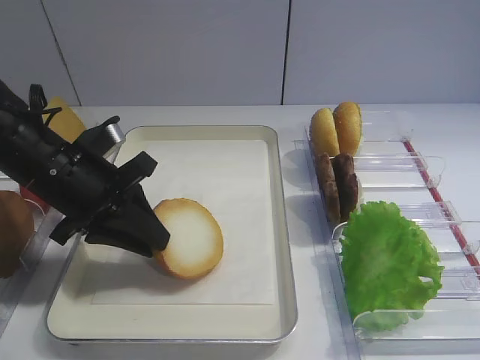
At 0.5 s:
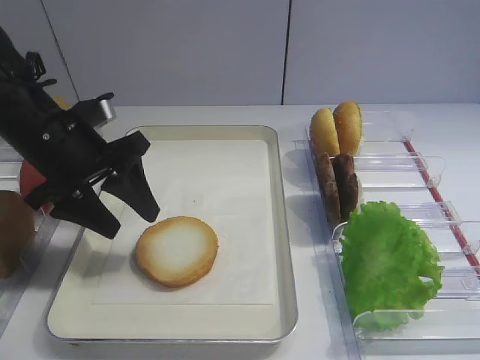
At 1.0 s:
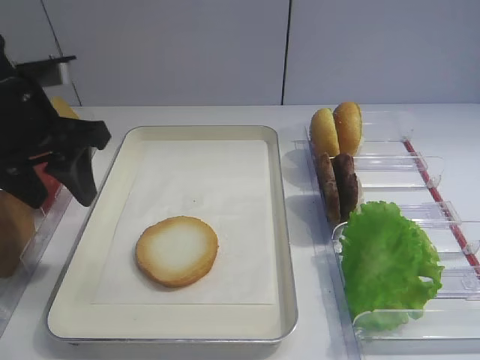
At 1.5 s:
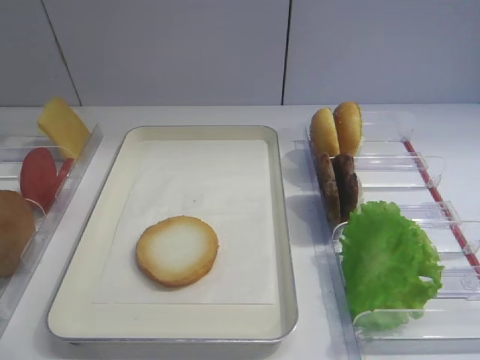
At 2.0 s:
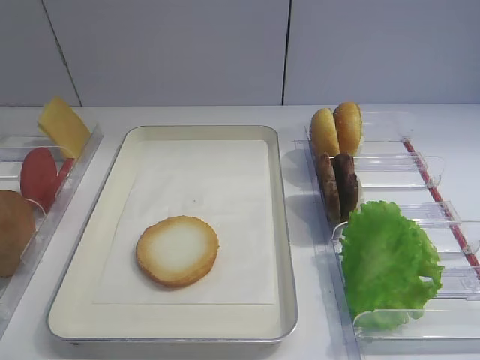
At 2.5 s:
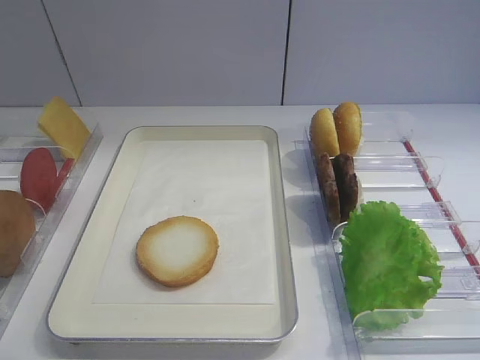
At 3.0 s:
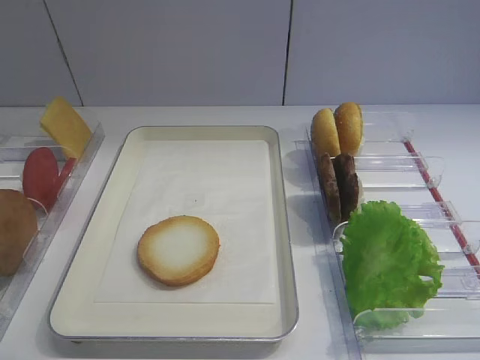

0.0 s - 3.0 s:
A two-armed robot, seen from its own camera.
0.0 s - 1.5 s: The left gripper travels backward, upward and to the left by about 25 cm.
1.5 s - 3.0 s: The left gripper travels backward and downward by about 10 cm.

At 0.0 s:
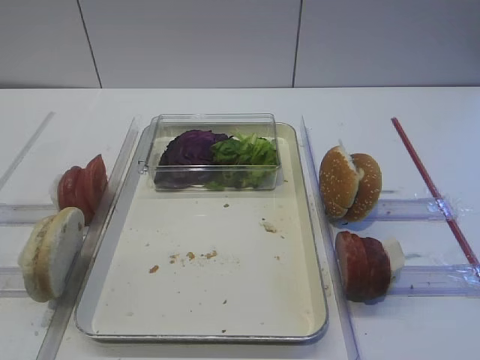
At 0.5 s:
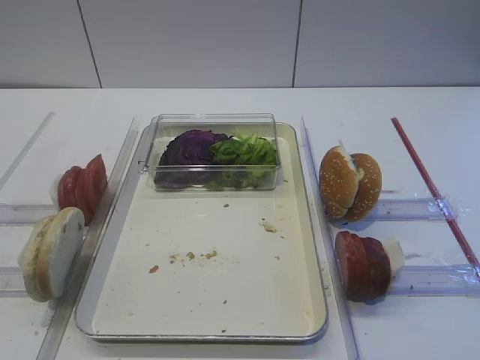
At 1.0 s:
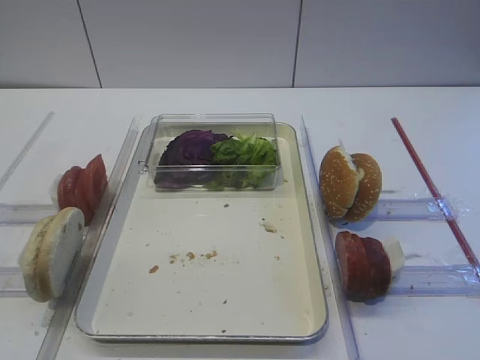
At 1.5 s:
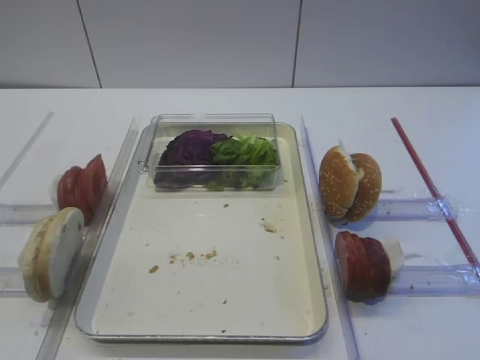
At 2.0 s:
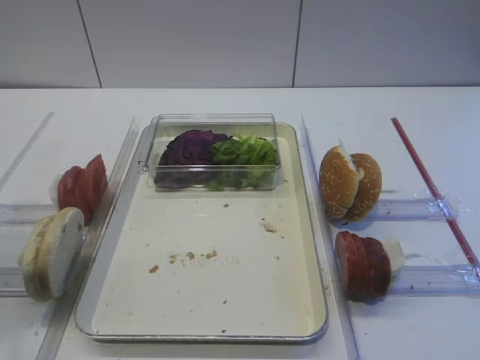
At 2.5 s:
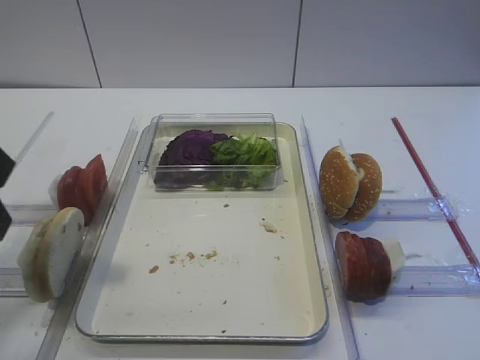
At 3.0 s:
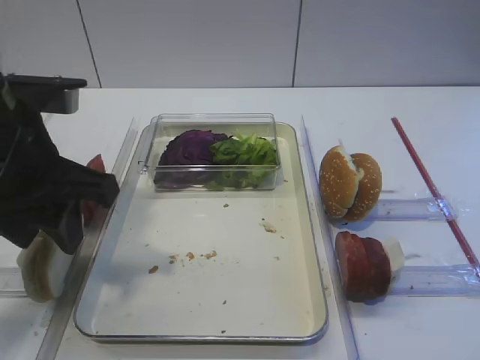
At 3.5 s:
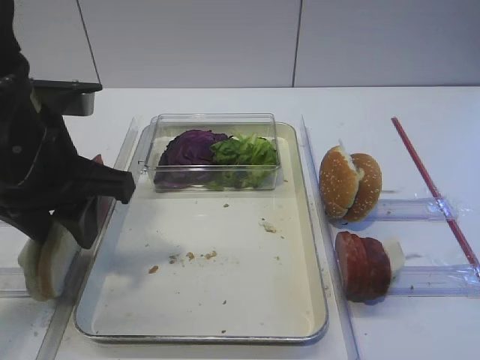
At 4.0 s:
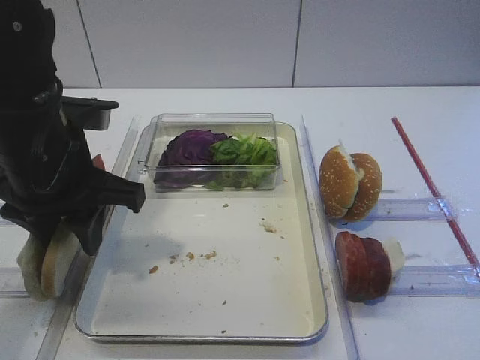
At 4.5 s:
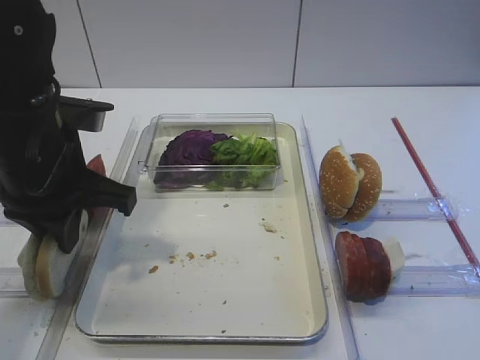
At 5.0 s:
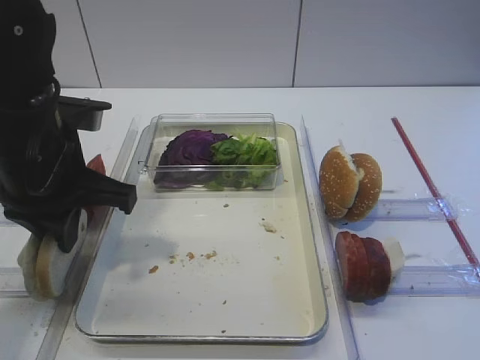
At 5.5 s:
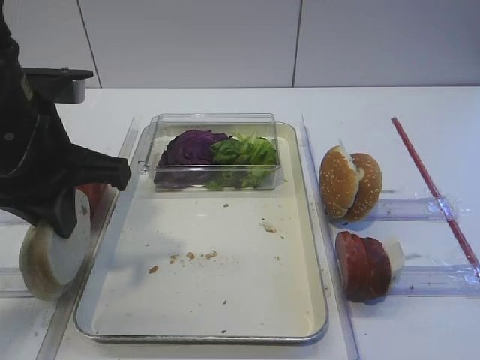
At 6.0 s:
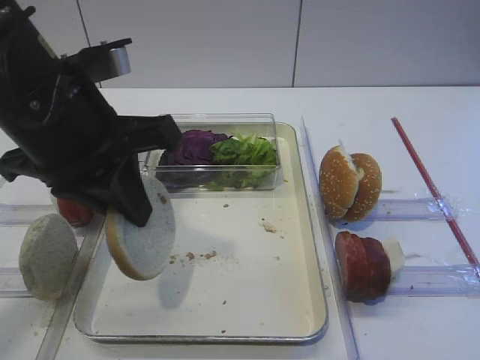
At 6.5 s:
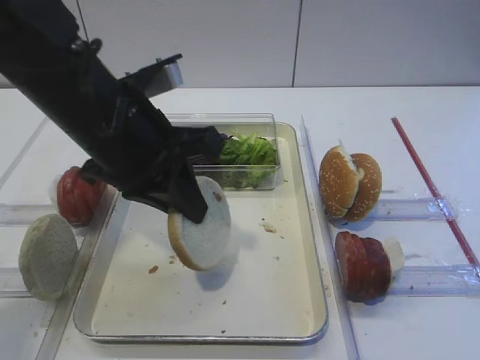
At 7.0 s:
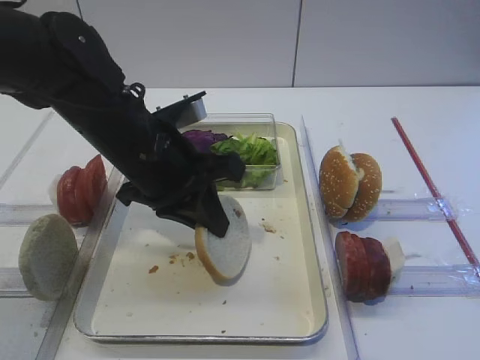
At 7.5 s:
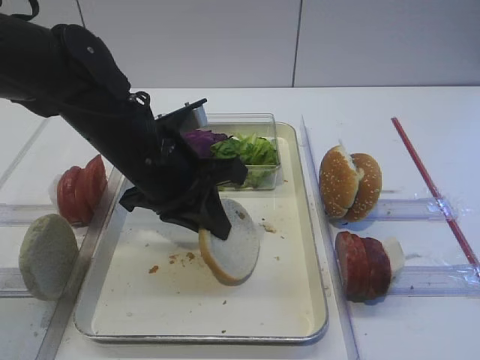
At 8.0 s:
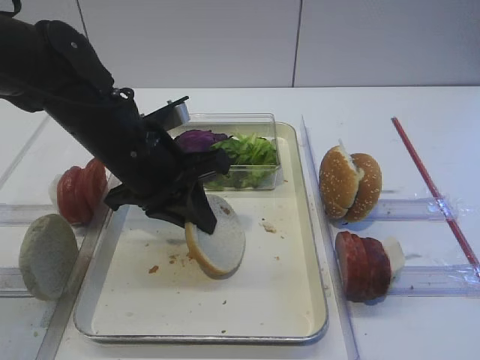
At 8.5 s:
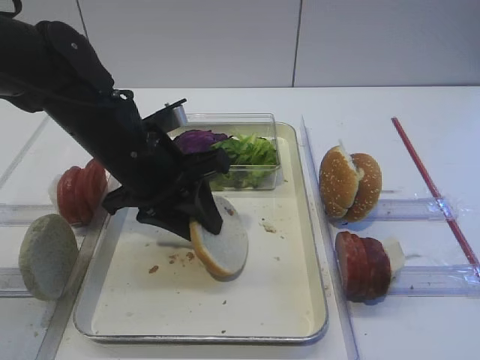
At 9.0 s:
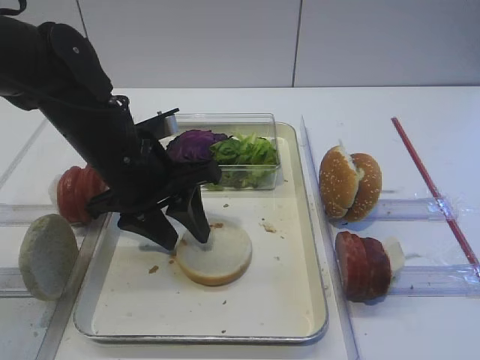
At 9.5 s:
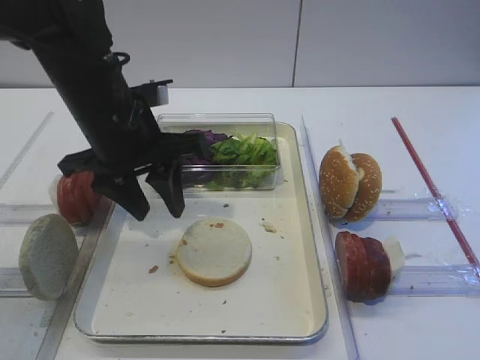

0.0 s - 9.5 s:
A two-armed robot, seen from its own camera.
Step, 0.0 s - 5.5 s: Pick up the bread slice with the left gripper.
Step, 6.0 s - 9.0 s: Place the bread slice on the tray with the left gripper.
2.0 s - 4.0 s: The left gripper heads forward, to the right and downward, covering some 20 cm.
4.0 s - 5.5 s: The left gripper closes.
5.5 s - 7.5 s: The left gripper moves to the right, downward and forward, approximately 10 cm.
7.5 s - 9.5 s: The left gripper opens its fingers.

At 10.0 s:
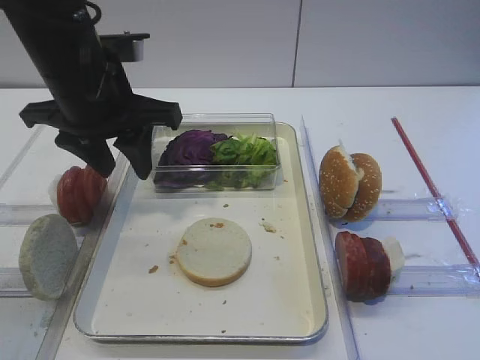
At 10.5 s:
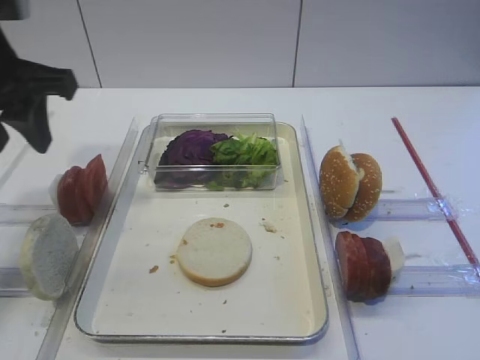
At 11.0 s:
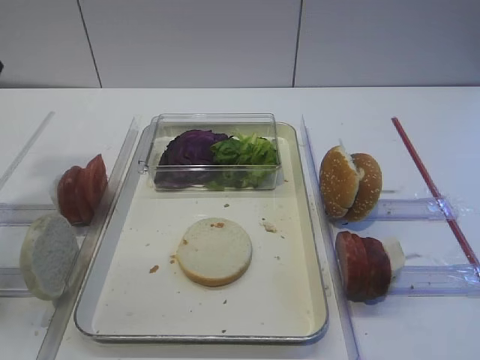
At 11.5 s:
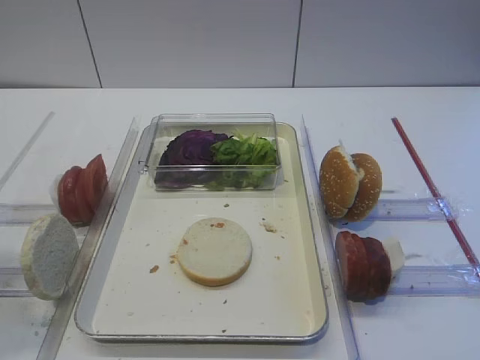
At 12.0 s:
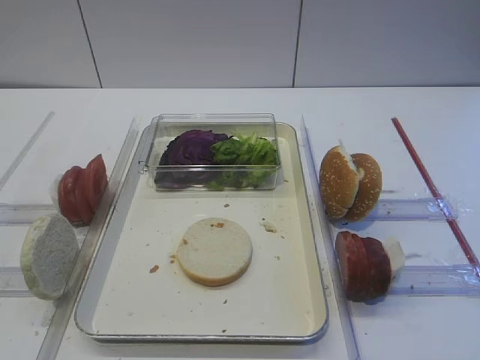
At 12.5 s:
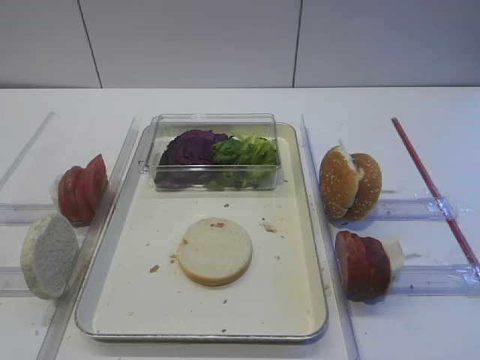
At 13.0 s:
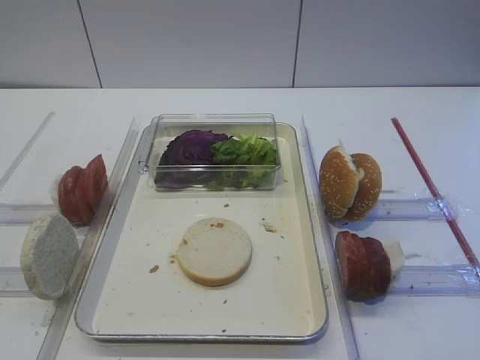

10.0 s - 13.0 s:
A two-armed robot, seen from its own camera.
10.0 s - 11.5 s: The left gripper goes some 25 cm backward and to the left.
11.5 s - 13.0 s: The left gripper heads backward and downward, covering approximately 15 cm.

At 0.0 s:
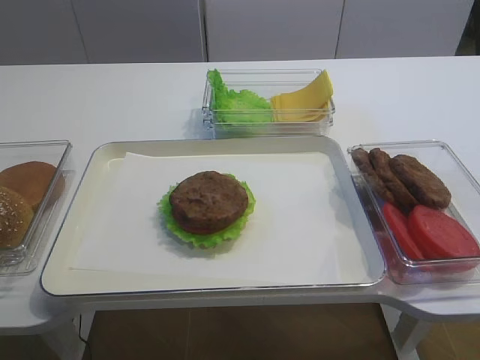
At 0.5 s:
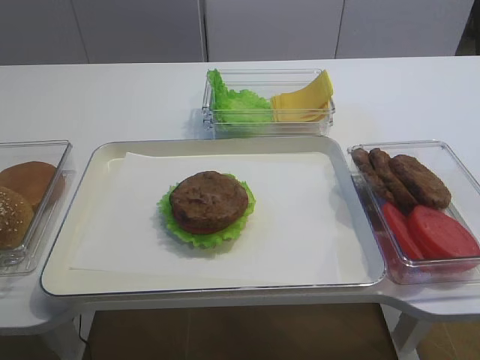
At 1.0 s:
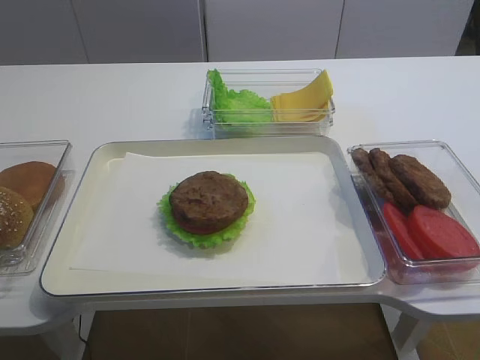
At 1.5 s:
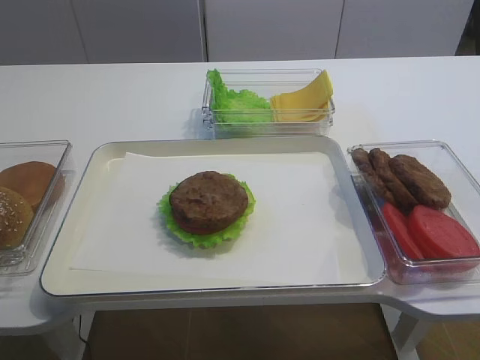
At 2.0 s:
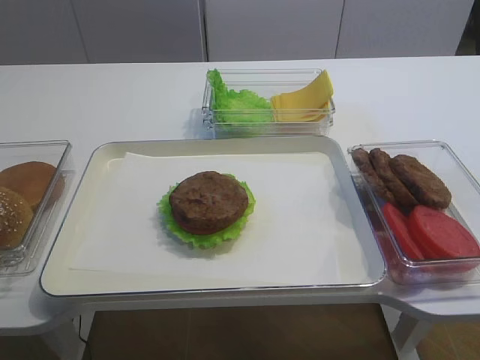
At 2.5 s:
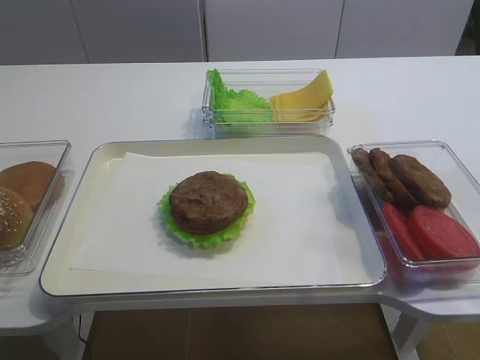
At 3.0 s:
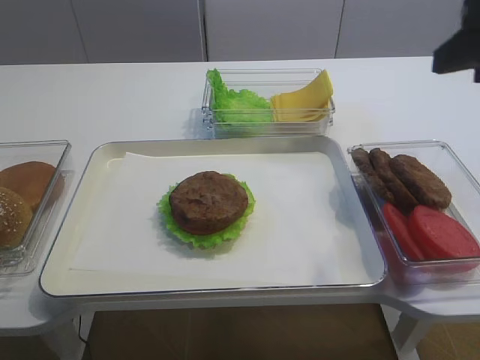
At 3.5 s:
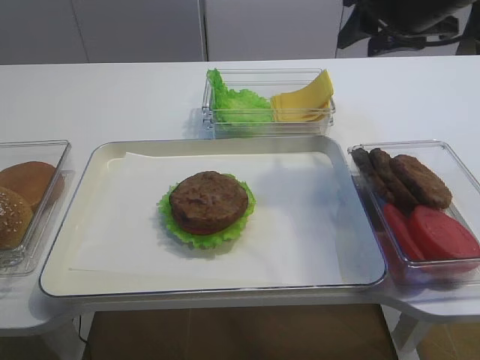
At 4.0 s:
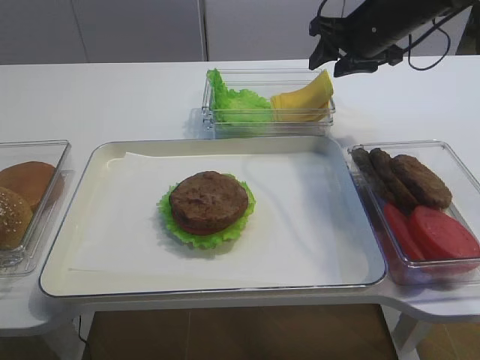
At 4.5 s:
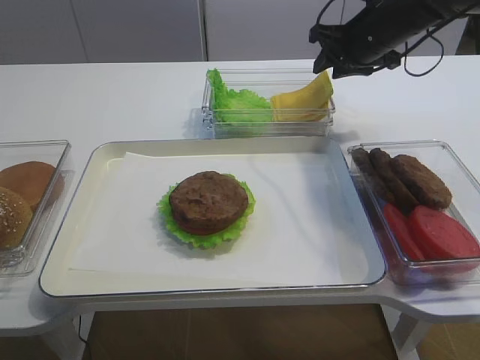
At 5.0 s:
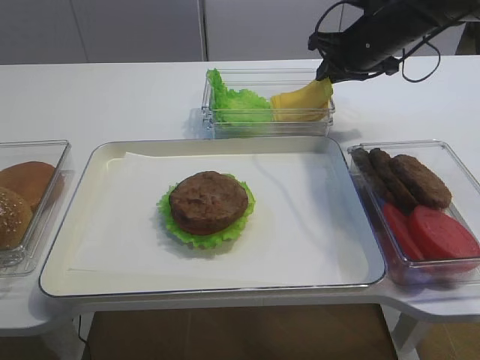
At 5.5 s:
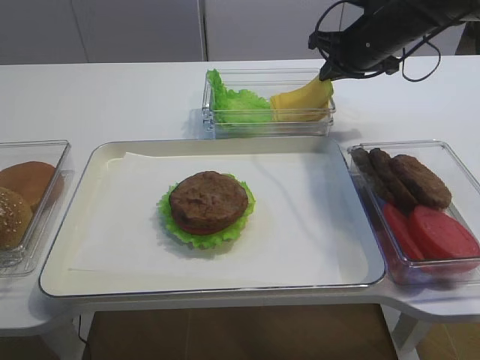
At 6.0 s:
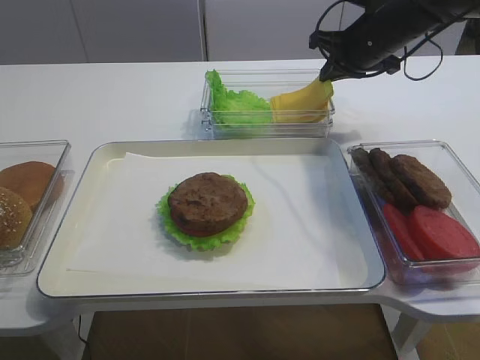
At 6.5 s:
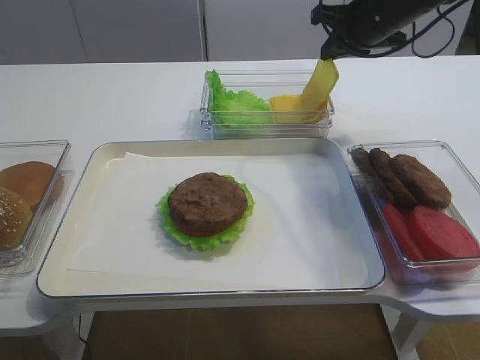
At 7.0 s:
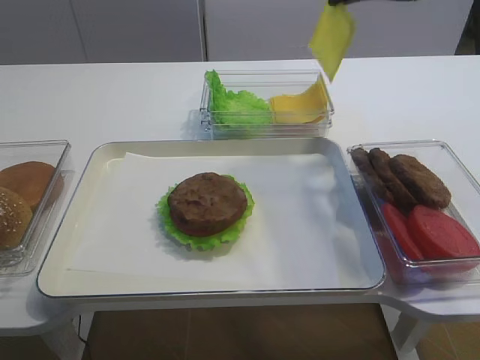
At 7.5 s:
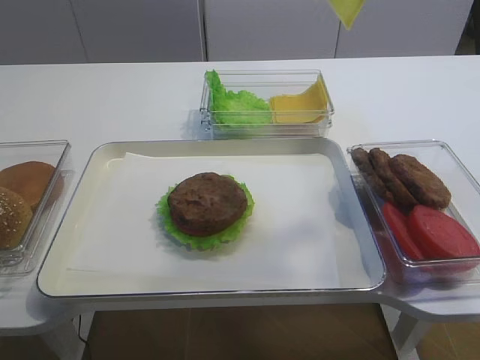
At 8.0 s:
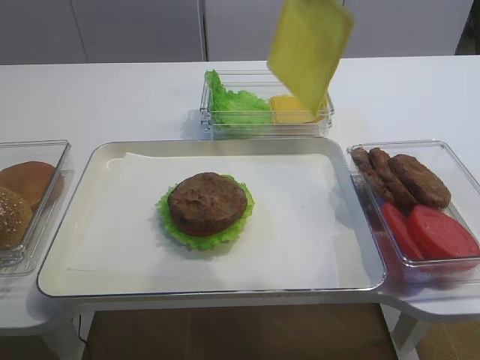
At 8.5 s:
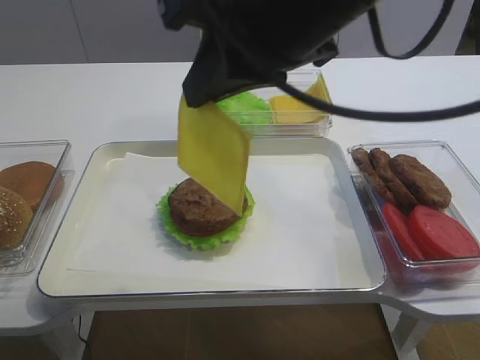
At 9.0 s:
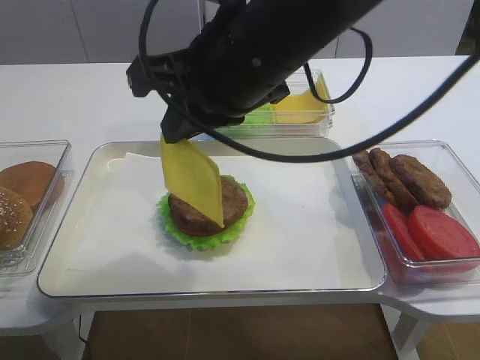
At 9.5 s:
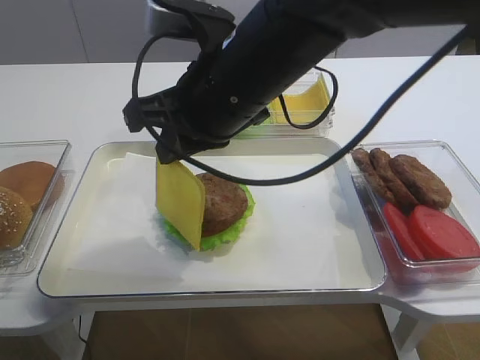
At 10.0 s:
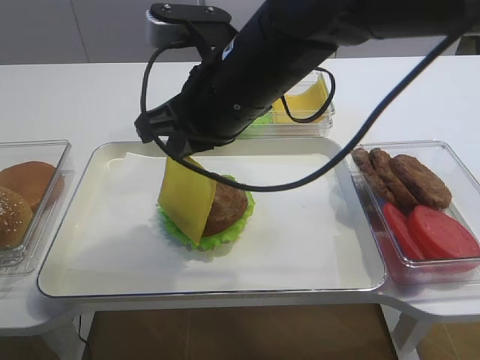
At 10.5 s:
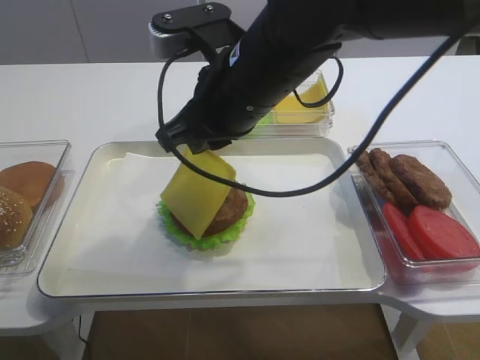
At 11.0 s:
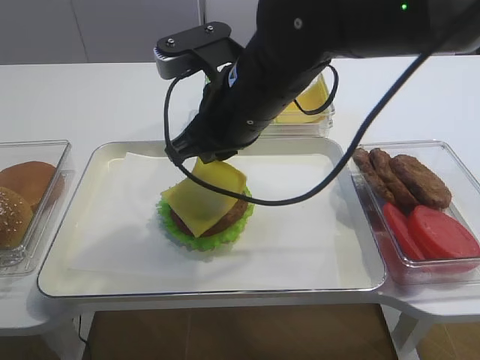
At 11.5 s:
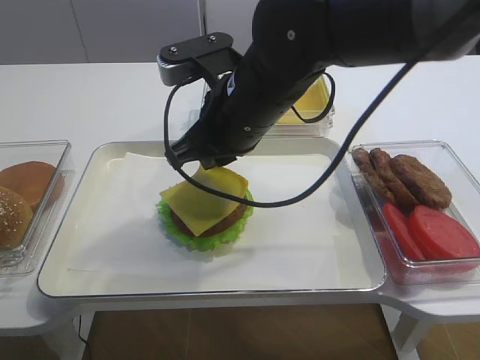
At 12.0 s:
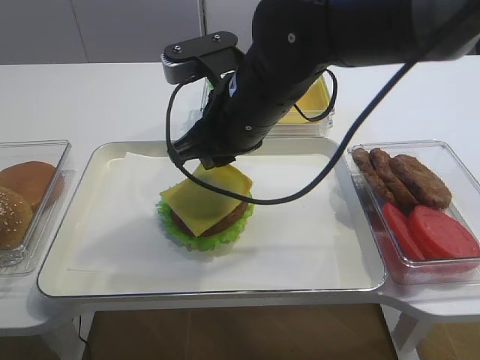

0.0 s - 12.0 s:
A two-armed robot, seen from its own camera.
Step, 0.0 s - 6.5 s: Pick up the cheese slice with the right gripper.
2.0 s - 4.0 s: The right gripper heads forward, covering roughly 50 cm.
4.0 s - 6.0 s: The right gripper closes.
6.0 s - 8.0 s: The right gripper goes about 30 cm backward and upward.
8.0 s - 10.0 s: The right gripper travels downward and to the left by some 20 cm.
10.0 s - 12.0 s: The grippers make only small movements.
